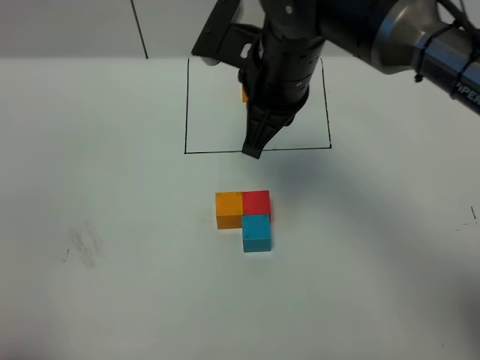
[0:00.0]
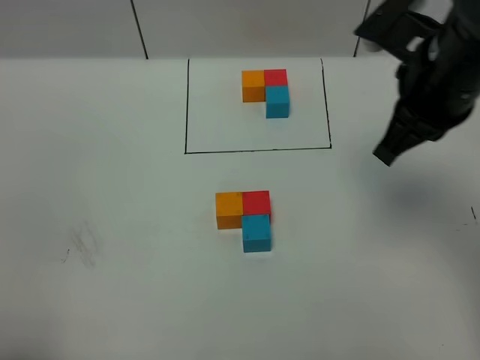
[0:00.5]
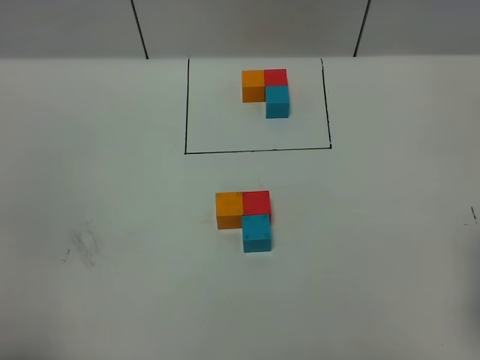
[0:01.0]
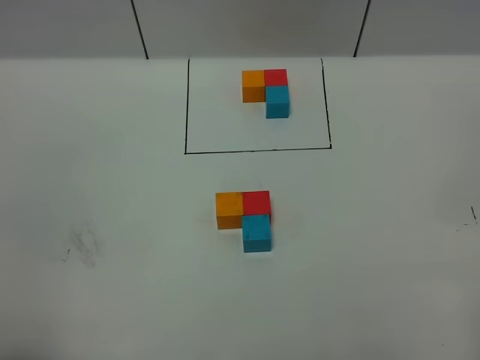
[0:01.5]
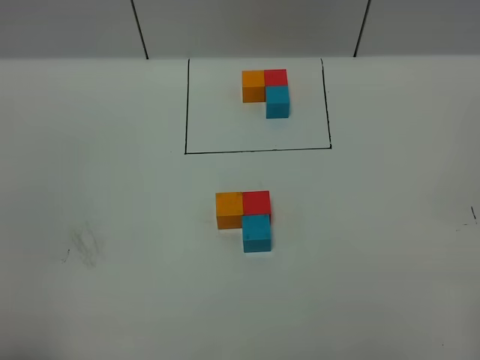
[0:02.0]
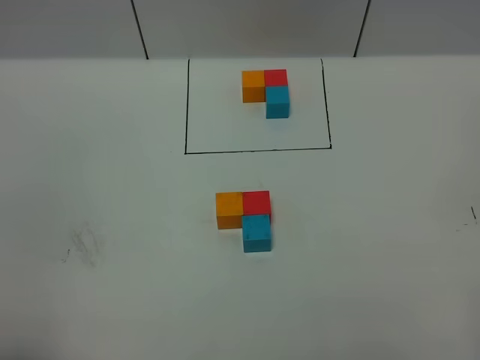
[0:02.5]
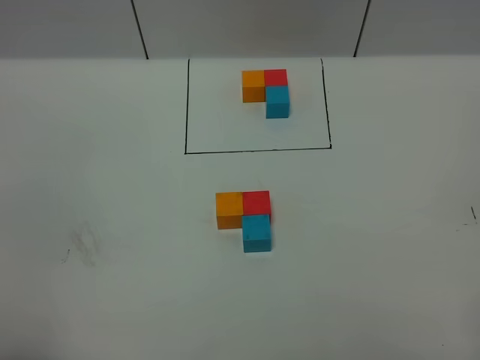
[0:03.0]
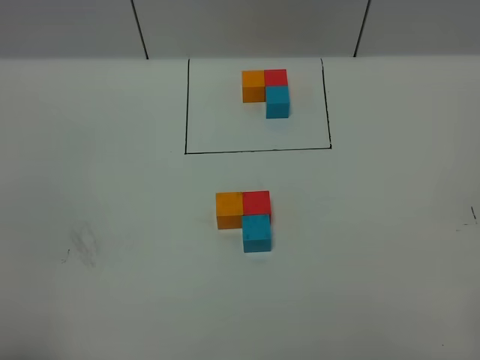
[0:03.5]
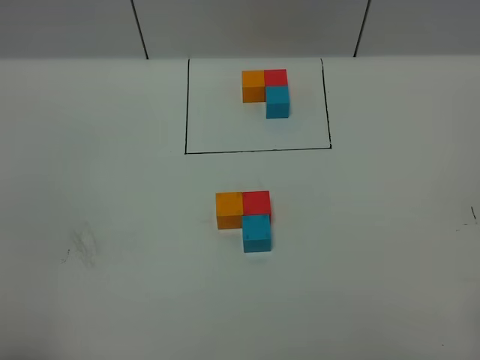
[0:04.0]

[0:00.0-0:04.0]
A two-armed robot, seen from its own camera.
Task of the whole recording: According to the building block template in front, assemble the scattered blocks together.
0:00.0 to 0:02.0: The right gripper goes some 40 cm backward and to the right.
